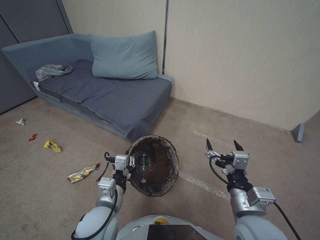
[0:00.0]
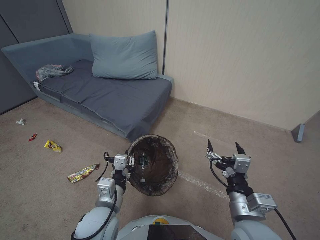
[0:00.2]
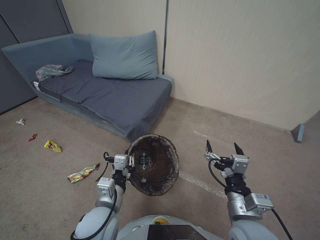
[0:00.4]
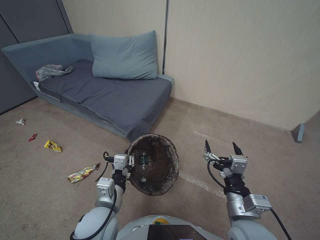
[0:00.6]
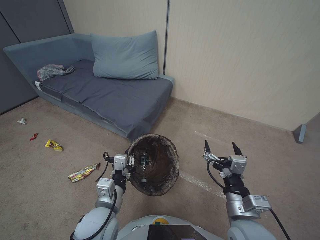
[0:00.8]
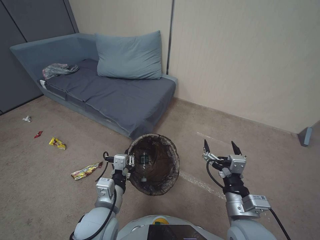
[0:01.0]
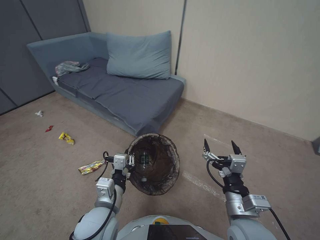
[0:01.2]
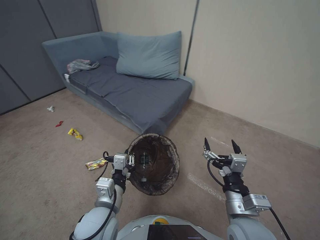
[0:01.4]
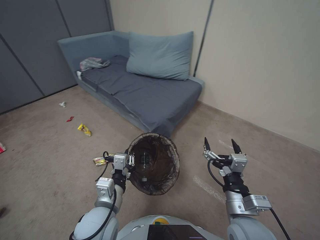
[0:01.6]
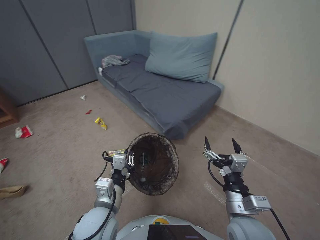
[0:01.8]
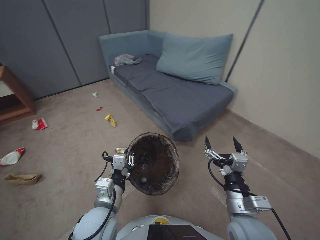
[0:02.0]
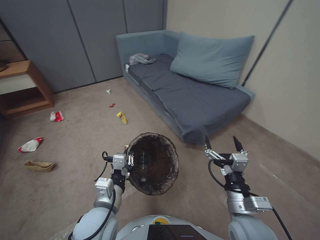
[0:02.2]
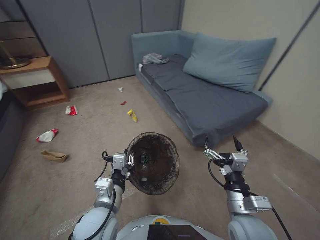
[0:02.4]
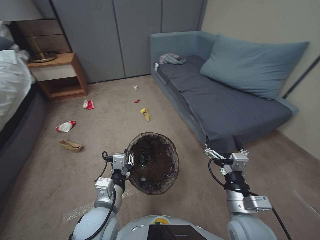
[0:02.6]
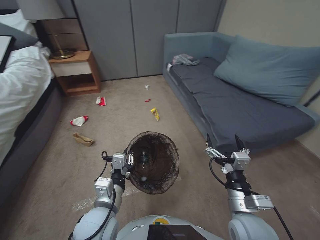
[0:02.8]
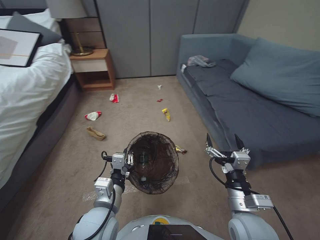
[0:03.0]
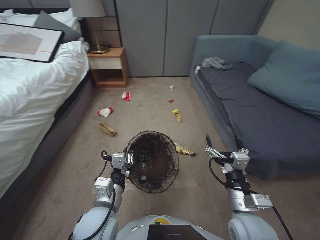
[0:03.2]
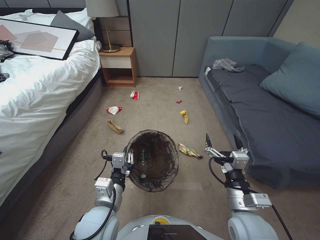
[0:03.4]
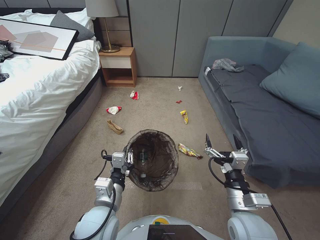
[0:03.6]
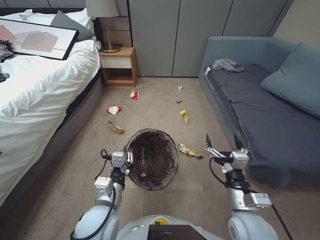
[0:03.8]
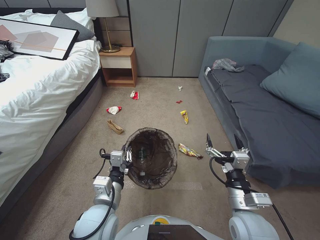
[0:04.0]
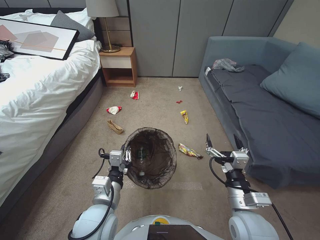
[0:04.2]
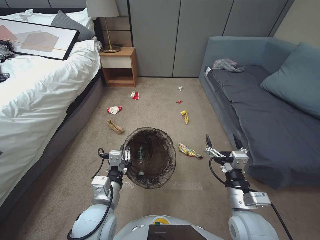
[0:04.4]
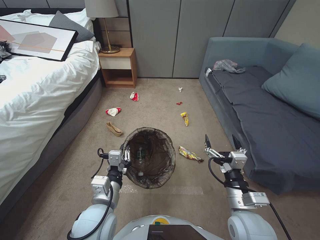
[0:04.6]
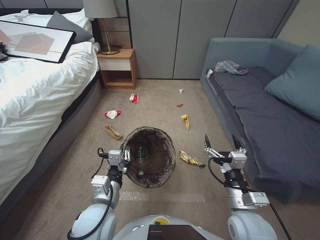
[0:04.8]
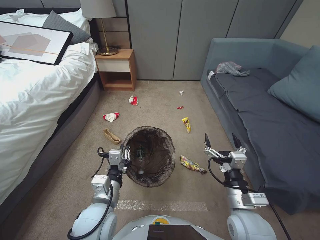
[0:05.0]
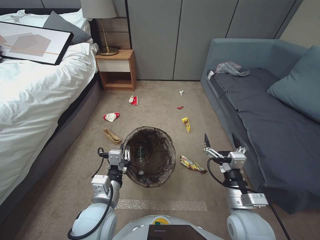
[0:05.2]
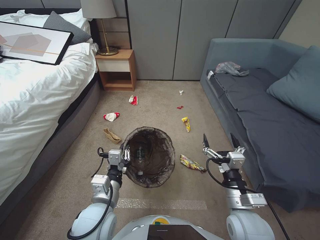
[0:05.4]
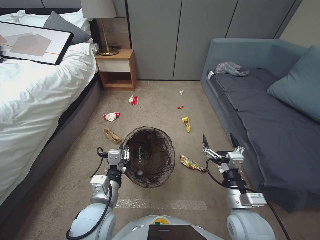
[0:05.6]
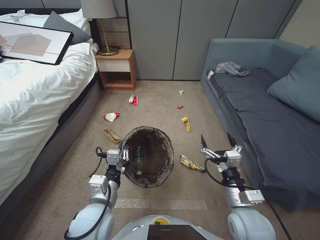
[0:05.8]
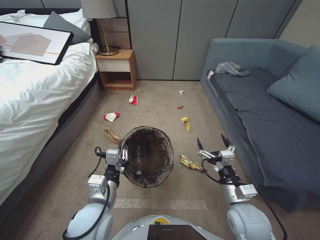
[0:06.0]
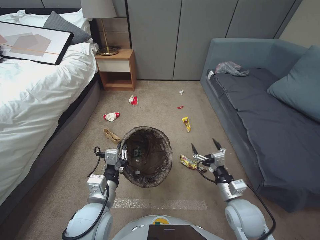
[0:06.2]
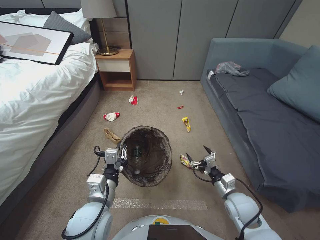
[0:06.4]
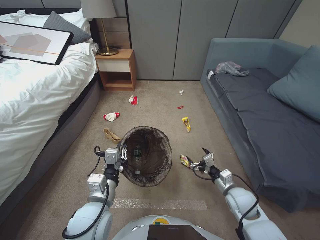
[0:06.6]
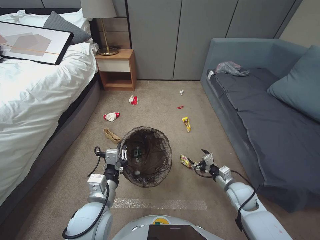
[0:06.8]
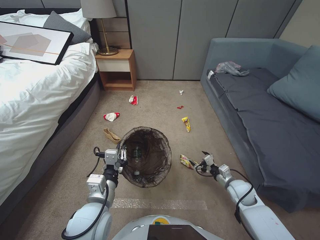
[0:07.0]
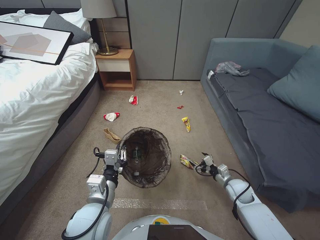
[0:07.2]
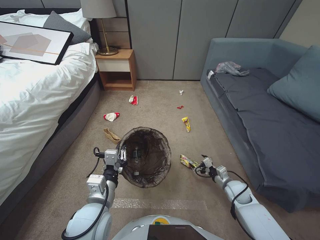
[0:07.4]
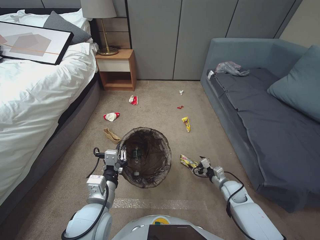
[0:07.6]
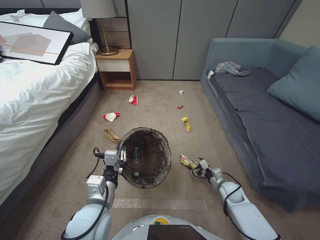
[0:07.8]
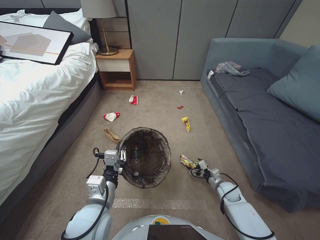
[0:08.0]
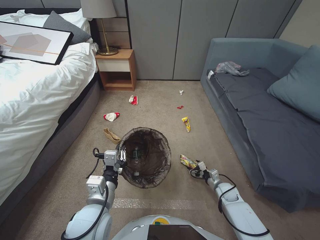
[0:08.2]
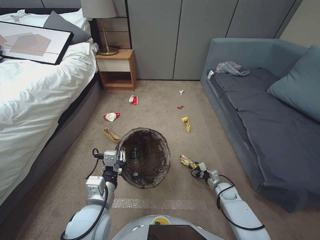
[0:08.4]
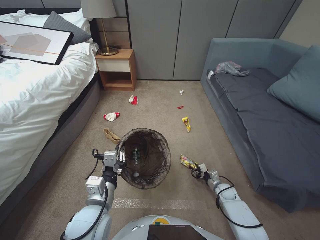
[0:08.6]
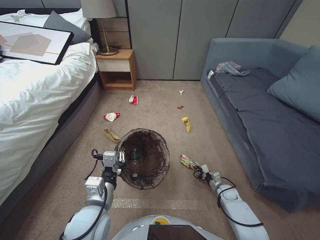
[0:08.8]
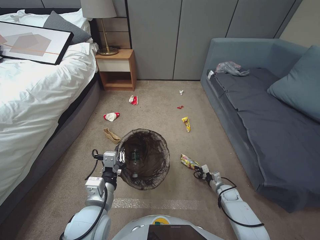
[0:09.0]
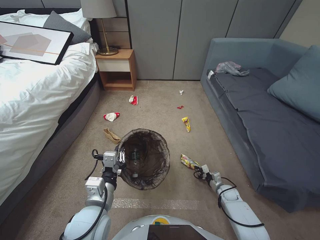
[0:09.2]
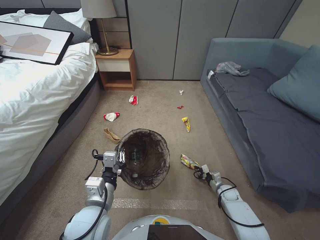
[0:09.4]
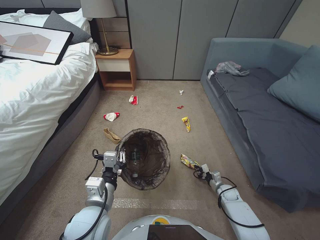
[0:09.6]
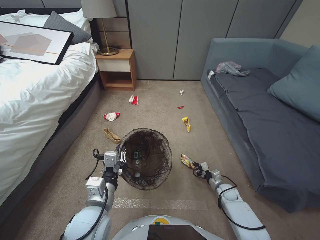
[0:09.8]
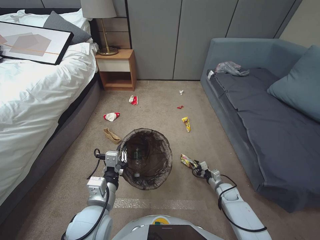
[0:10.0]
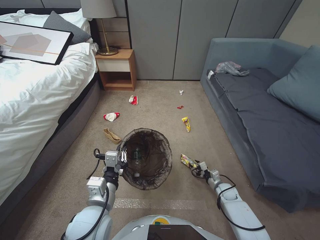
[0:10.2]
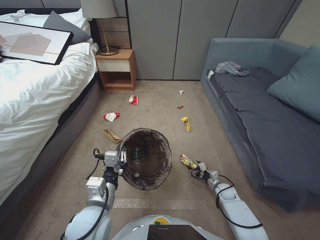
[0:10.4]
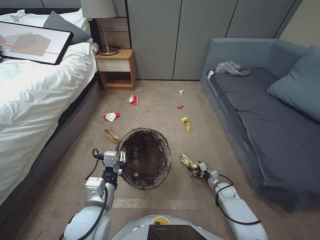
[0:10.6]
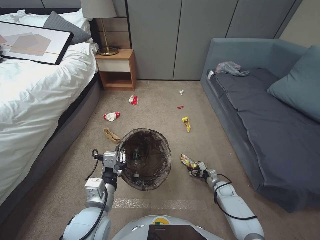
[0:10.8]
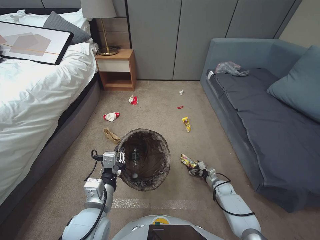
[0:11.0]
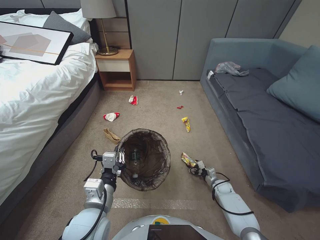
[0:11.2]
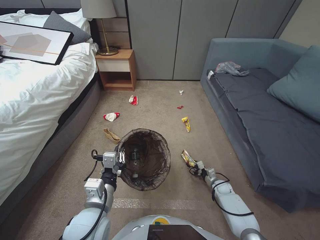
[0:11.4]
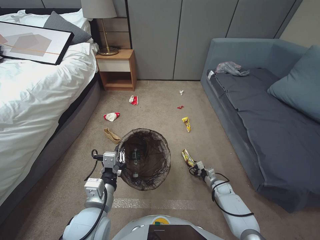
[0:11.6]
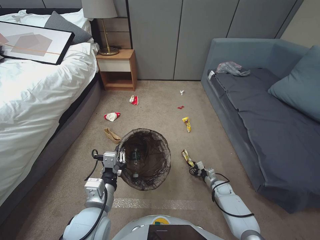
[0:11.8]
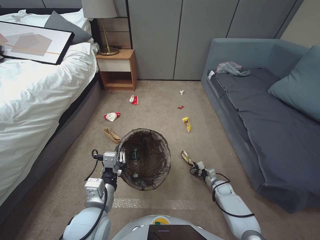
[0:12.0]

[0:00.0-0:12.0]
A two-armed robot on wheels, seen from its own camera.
Task of the whole recording: Pick up the trash bin, then pick up the garbage from the floor and place it into the trash bin.
0:04.4 to 0:06.0: The grippers move only a little.
0:06.0 to 0:07.6: The right gripper shifts some 25 cm downward, forward and to the right.
0:07.6 to 0:09.0: The right gripper shifts roughly 10 cm downward, and closes its fingers.
0:09.0 to 0:10.4: The right gripper opens up.
0:10.4 to 0:12.0: The right gripper opens, then closes once more.

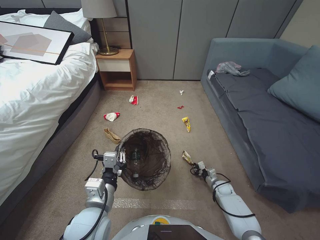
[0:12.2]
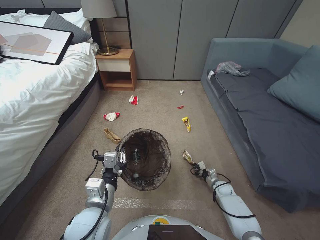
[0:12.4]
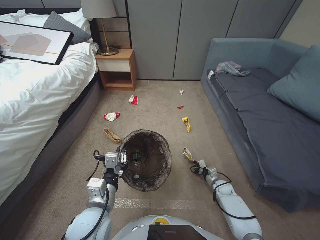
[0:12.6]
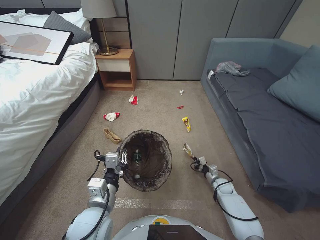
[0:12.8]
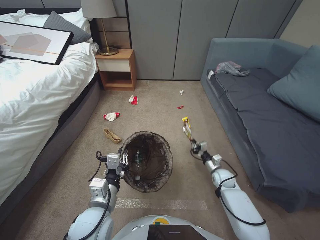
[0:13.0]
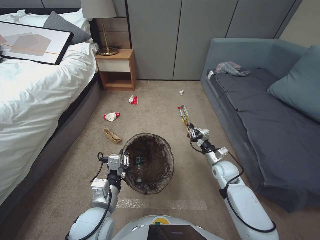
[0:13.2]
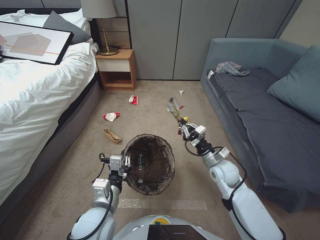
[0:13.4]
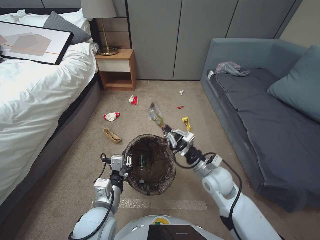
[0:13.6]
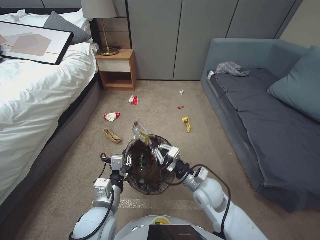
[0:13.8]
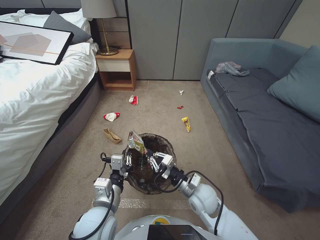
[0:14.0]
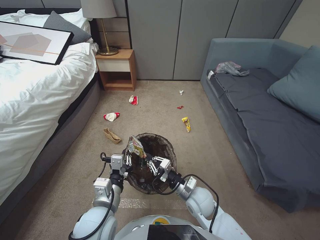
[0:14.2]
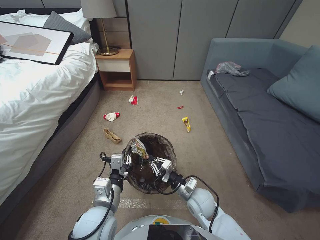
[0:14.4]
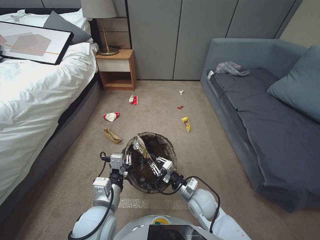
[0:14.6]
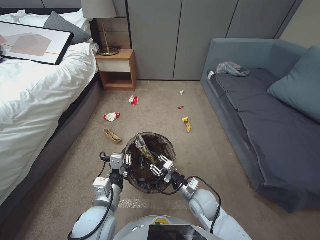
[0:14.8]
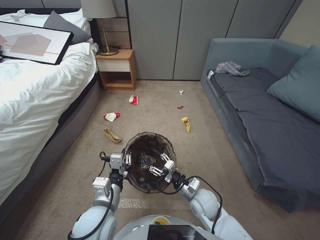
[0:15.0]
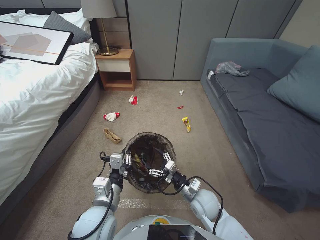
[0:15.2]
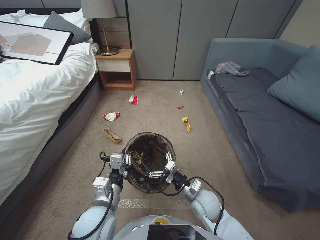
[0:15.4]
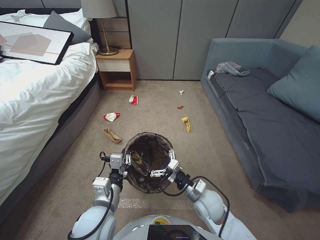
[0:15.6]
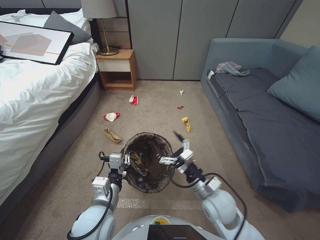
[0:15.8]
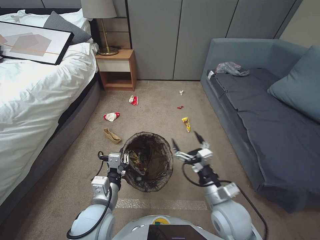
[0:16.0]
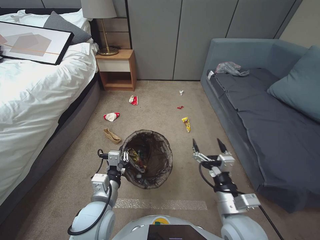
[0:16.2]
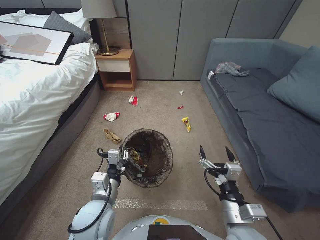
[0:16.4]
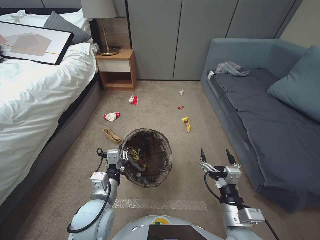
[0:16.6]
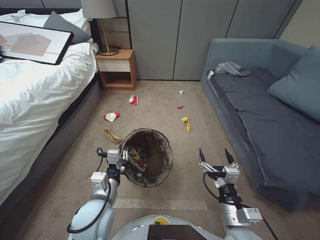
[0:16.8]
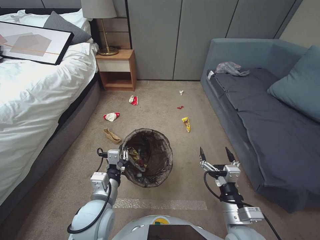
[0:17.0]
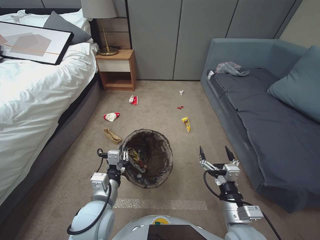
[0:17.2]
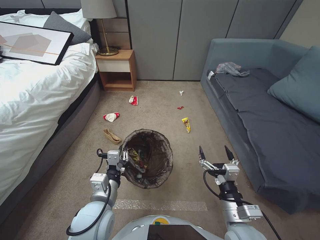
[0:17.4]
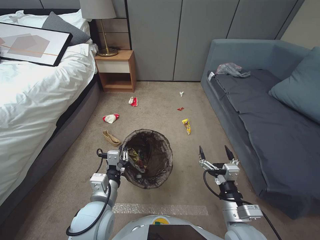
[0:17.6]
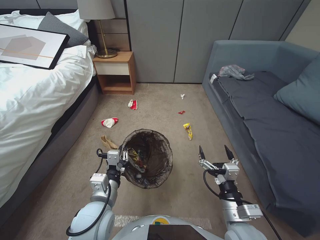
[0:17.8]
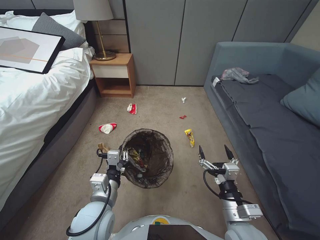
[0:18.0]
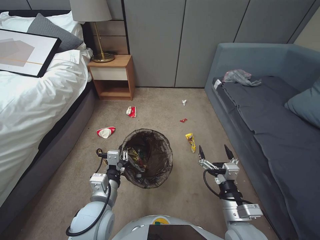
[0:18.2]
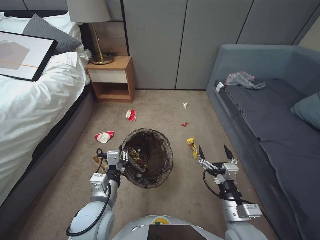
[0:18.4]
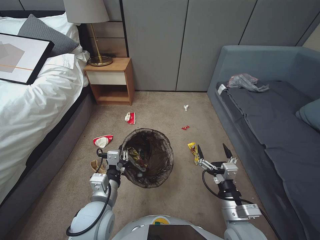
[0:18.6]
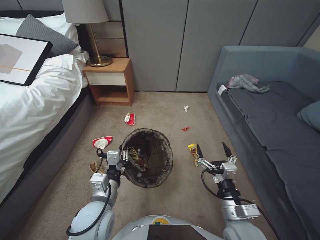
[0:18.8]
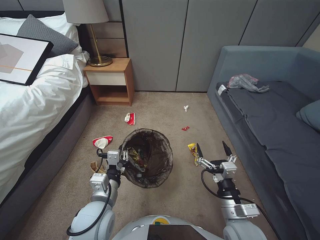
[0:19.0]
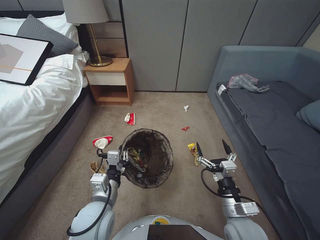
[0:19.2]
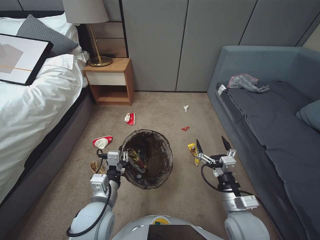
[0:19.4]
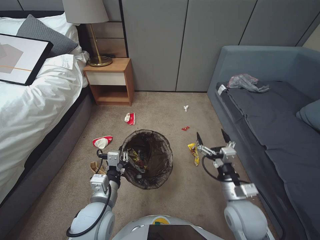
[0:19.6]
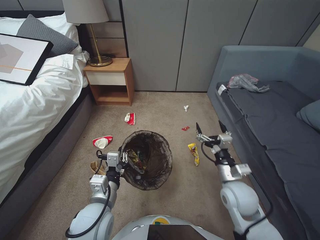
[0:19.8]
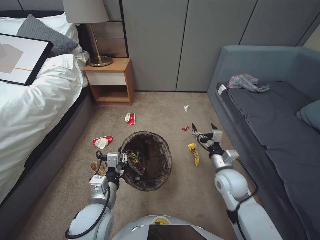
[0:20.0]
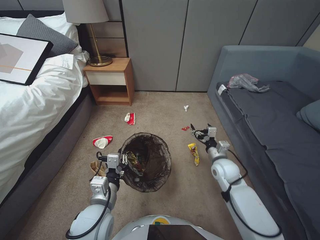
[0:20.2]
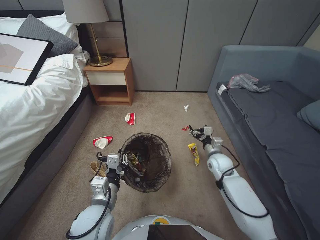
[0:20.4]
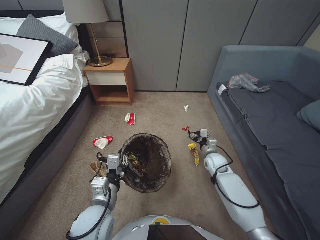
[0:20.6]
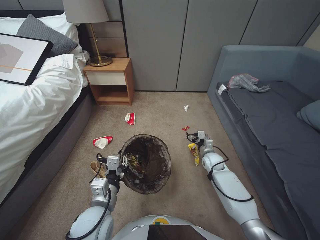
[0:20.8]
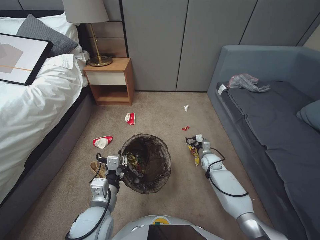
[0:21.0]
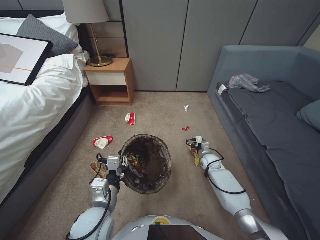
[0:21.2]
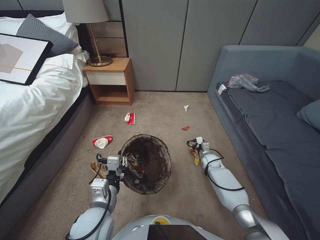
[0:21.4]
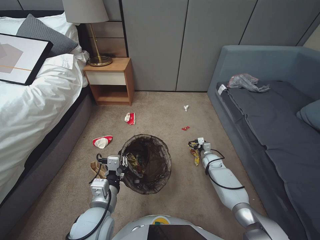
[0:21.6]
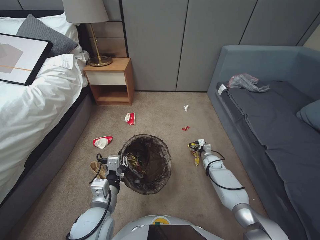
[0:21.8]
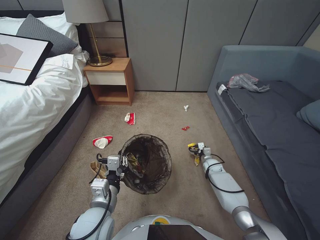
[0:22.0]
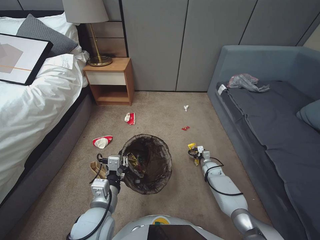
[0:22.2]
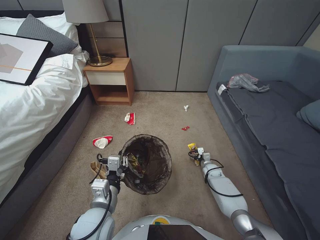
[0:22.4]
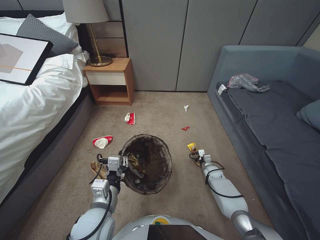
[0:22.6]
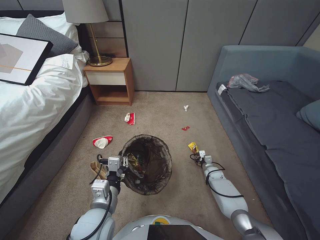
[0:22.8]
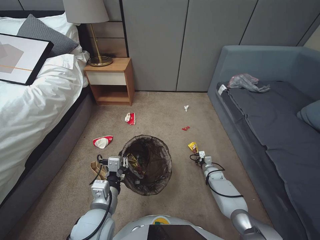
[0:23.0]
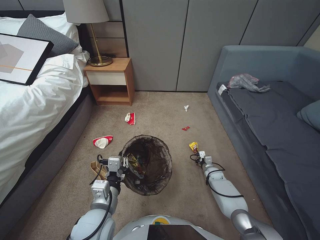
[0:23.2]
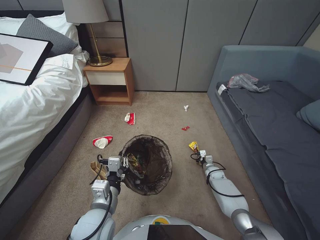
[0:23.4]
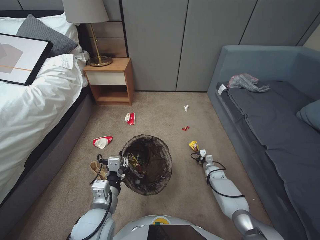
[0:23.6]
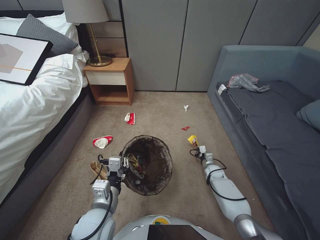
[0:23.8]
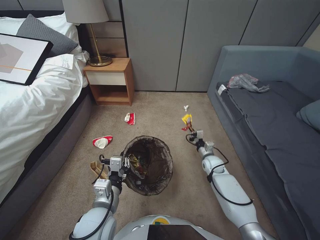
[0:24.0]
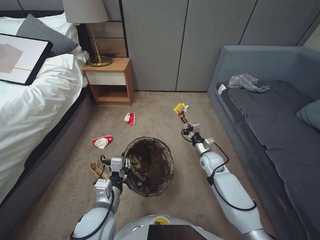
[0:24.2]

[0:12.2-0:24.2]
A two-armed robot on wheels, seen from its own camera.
Task of the whole recording: Pick up the trash bin, then pick up the garbage from the floor and place it into the trash bin.
0:12.2 to 0:13.8: The right gripper heads upward and to the left, covering some 30 cm.
0:13.8 to 0:15.2: The right gripper is displaced downward, backward and to the left by approximately 15 cm, and opens.
0:15.2 to 0:16.6: The right gripper heads backward and upward, covering some 15 cm.
0:18.2 to 0:19.8: The right gripper shifts approximately 10 cm forward.
0:19.8 to 0:21.2: The right gripper moves forward and downward, roughly 30 cm.
0:21.2 to 0:22.6: The right gripper shifts approximately 10 cm downward.
0:22.6 to 0:24.2: The right gripper heads upward, covering some 15 cm, and closes.
